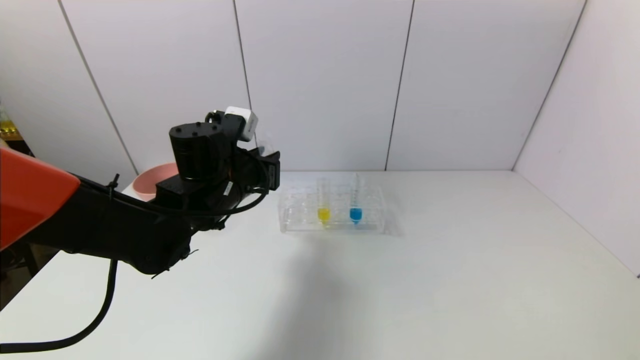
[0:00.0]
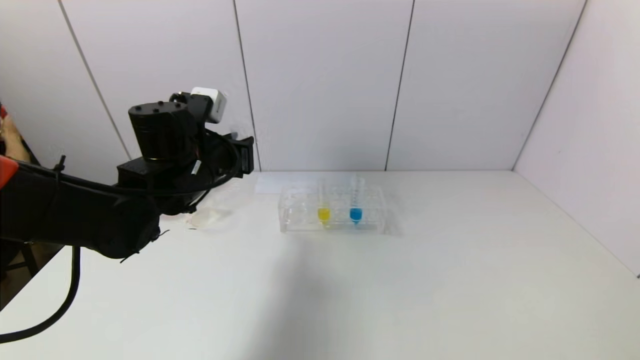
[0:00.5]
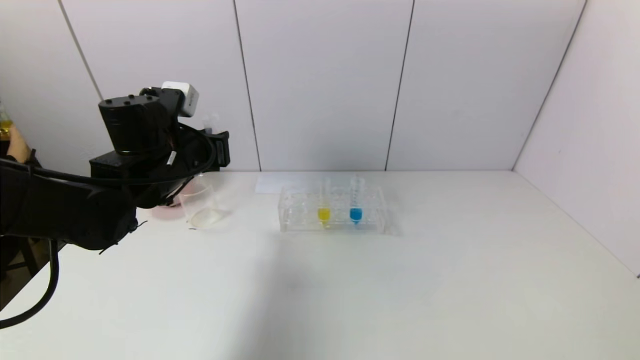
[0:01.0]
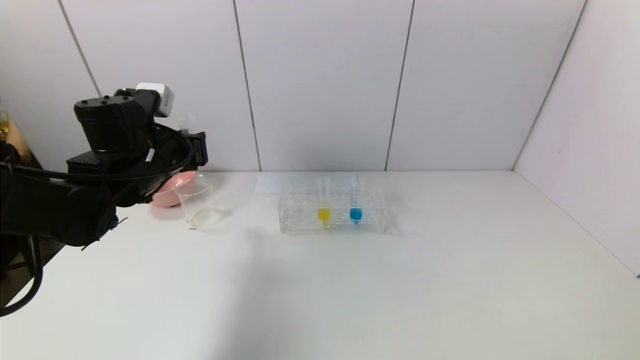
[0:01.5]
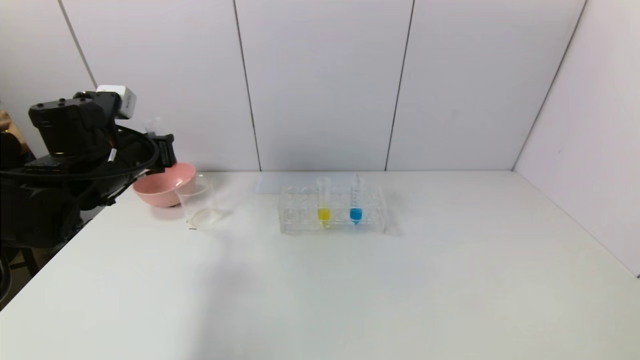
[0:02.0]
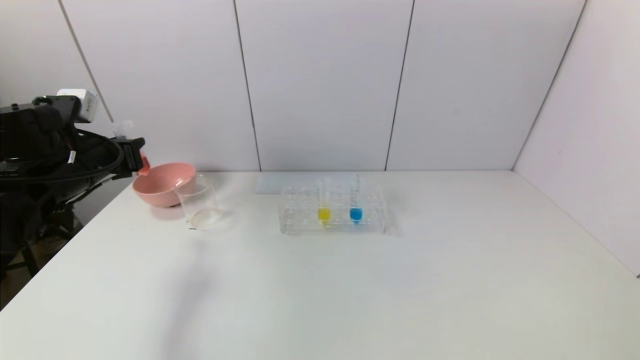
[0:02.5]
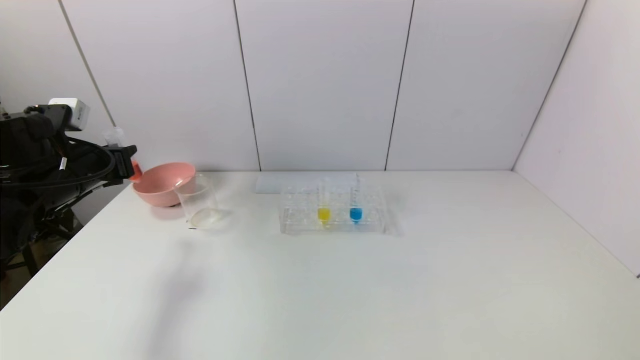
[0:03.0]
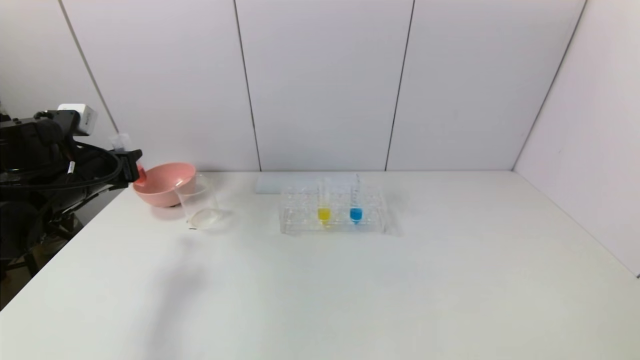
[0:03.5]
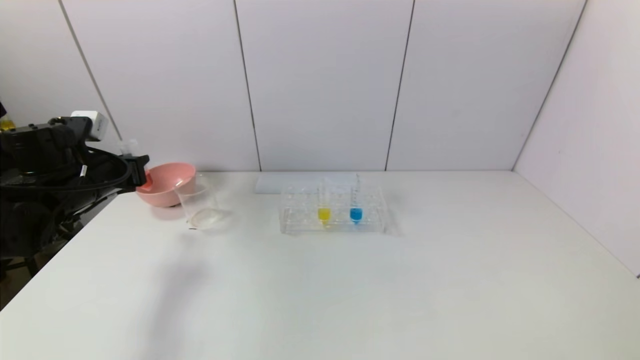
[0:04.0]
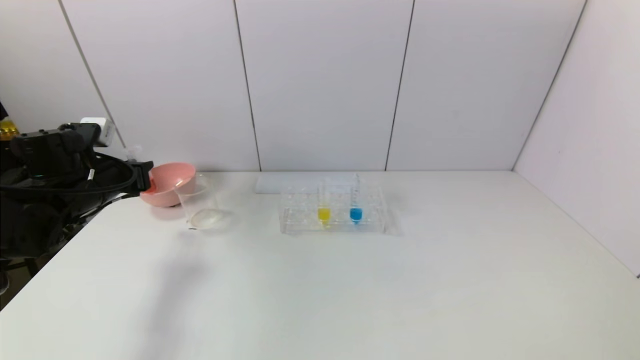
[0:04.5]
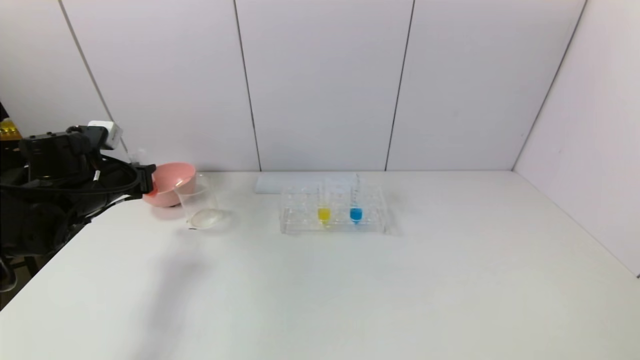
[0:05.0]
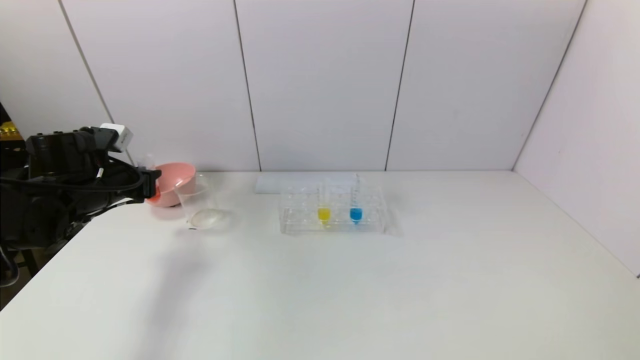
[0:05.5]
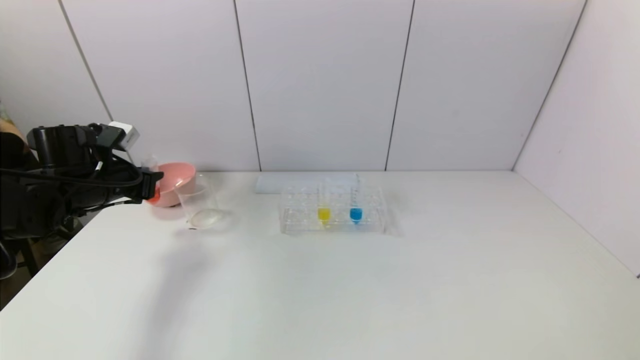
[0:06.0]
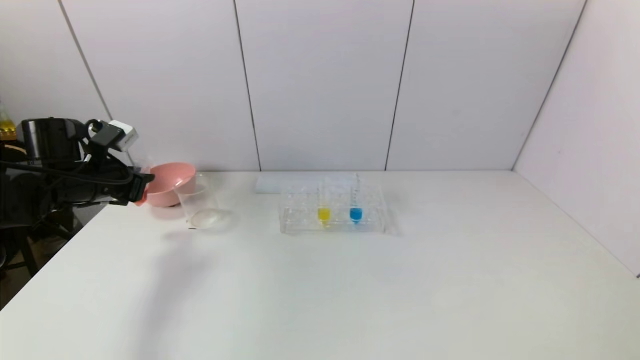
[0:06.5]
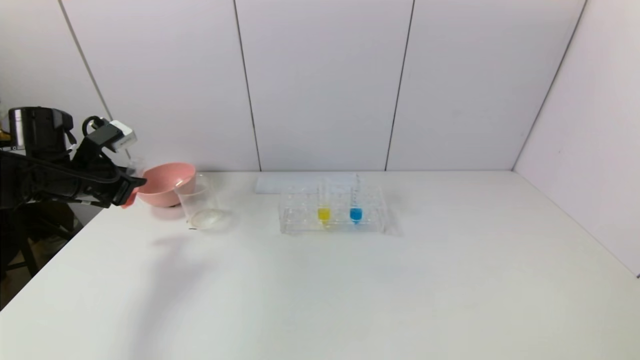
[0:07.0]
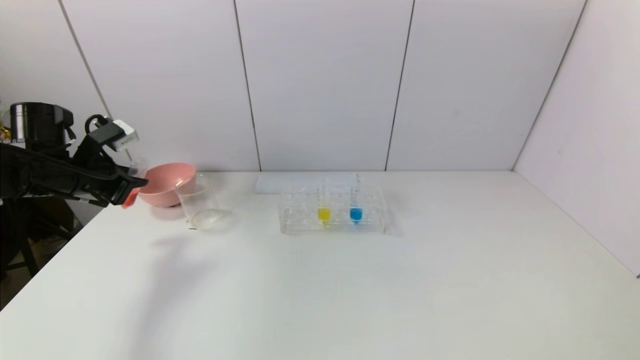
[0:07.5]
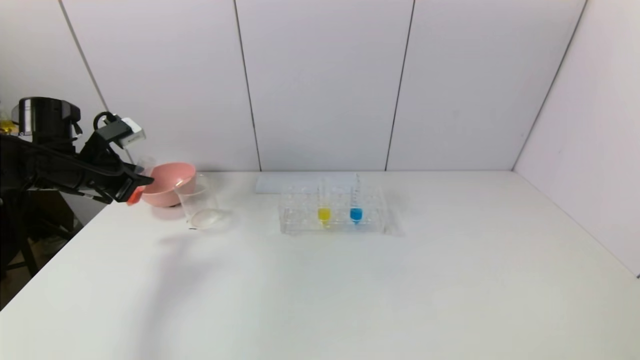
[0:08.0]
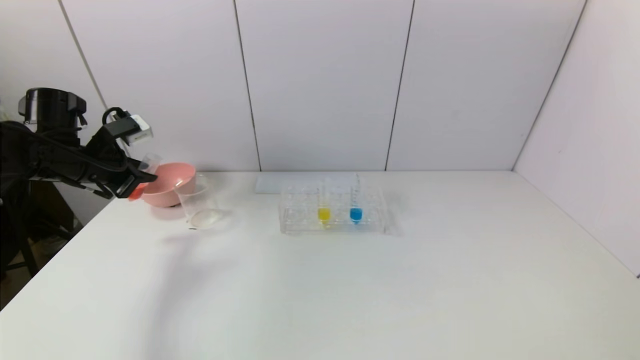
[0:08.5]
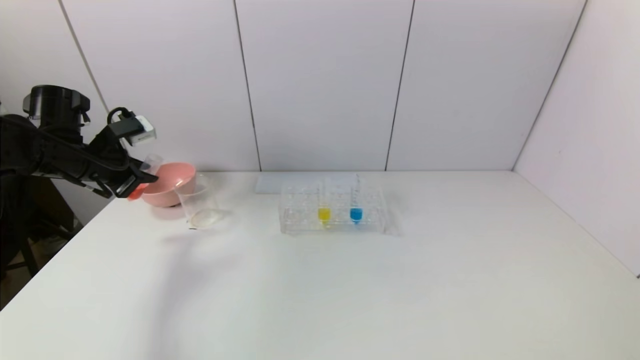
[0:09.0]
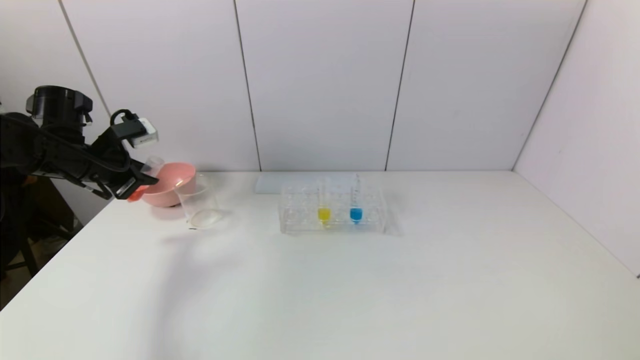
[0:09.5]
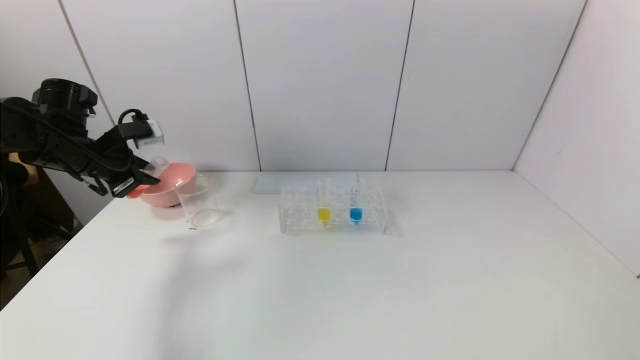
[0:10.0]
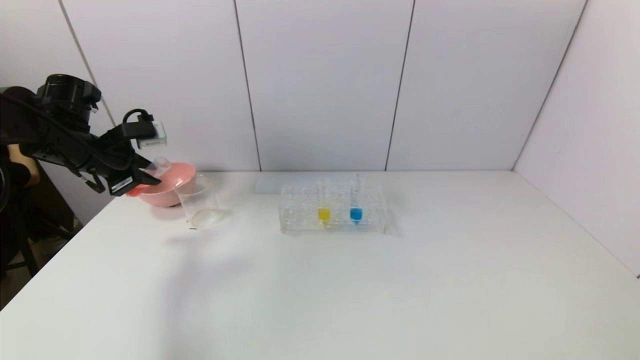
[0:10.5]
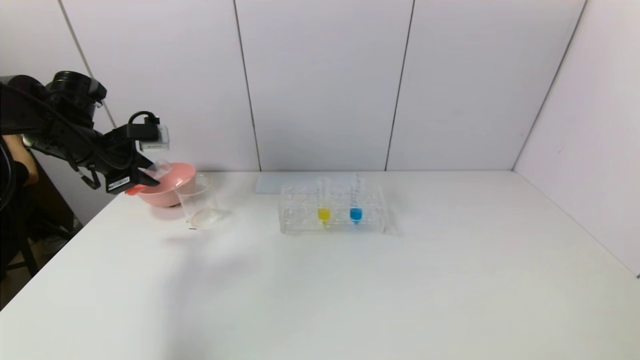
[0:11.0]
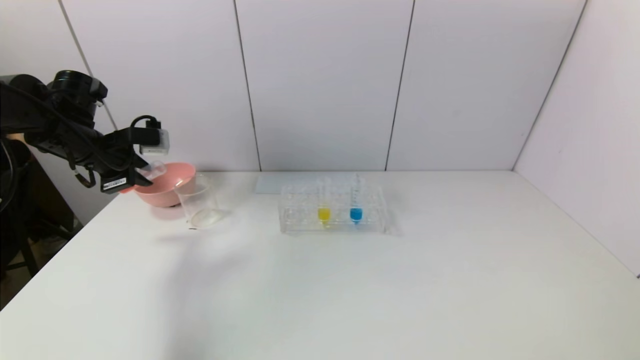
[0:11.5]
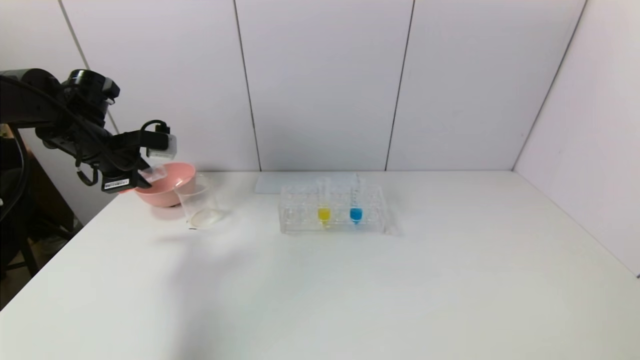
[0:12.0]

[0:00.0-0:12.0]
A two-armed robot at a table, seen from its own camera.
Task of the whole recording: pick up the test tube with yellow pigment and the test tube with red pigment by grippers and pour them into the beaker.
0:00.0 to 0:02.0: The left gripper is displaced to the left by approximately 15 cm.
0:02.0 to 0:04.0: The left gripper heads to the left, covering some 5 cm.
0:04.0 to 0:06.0: There are only small adjustments of the grippers.
0:08.0 to 0:10.0: There are only small adjustments of the grippers.

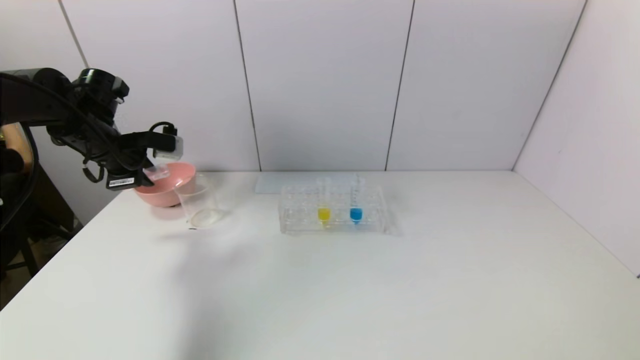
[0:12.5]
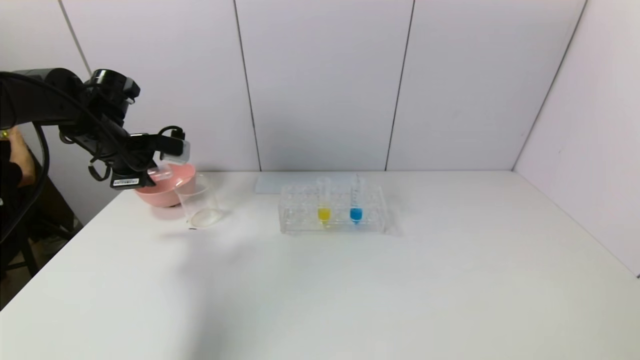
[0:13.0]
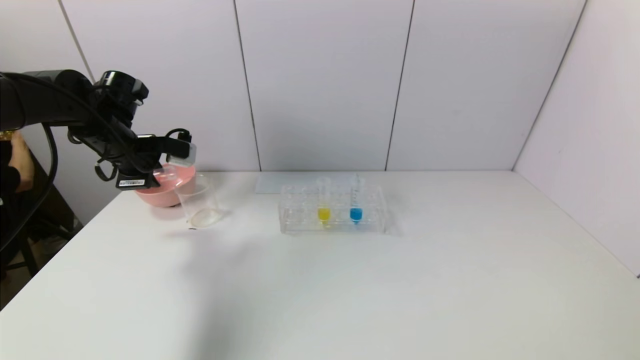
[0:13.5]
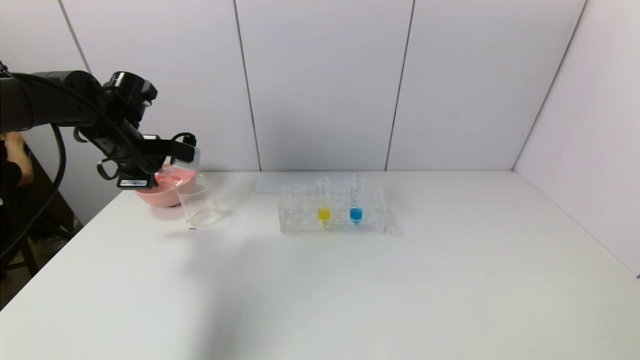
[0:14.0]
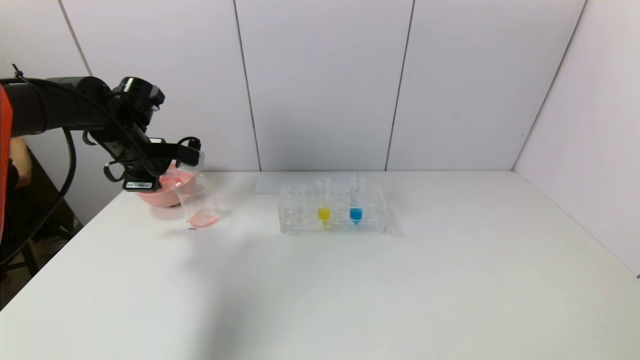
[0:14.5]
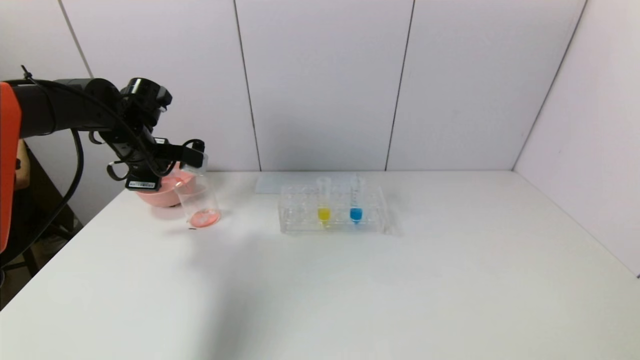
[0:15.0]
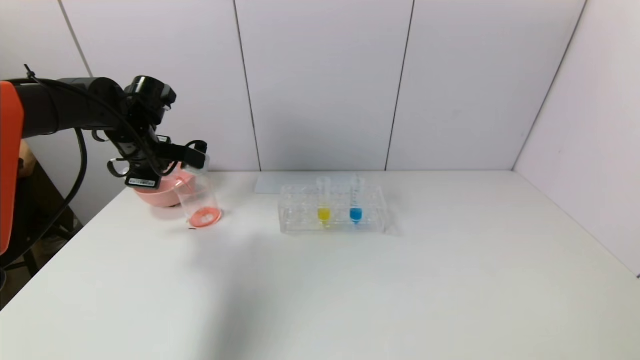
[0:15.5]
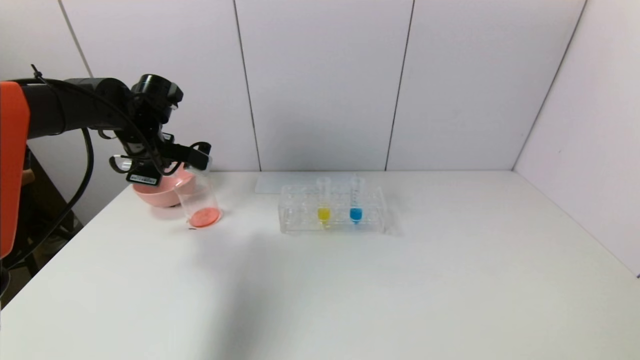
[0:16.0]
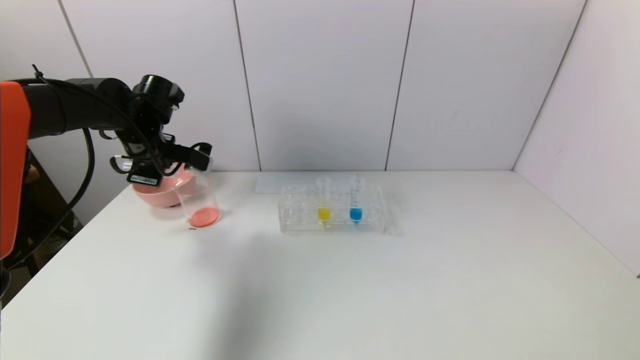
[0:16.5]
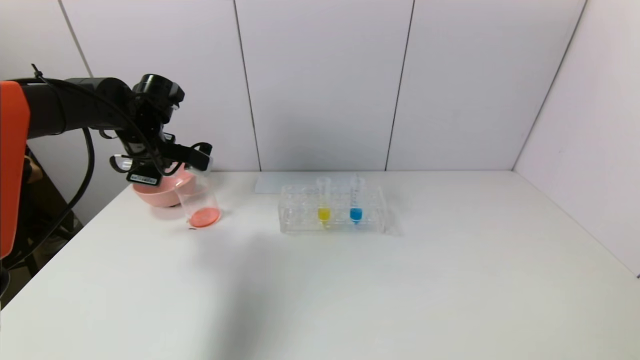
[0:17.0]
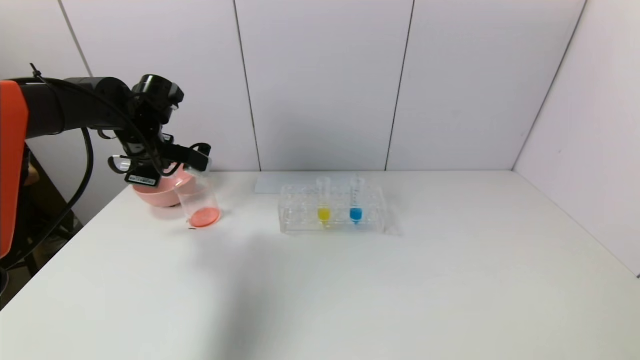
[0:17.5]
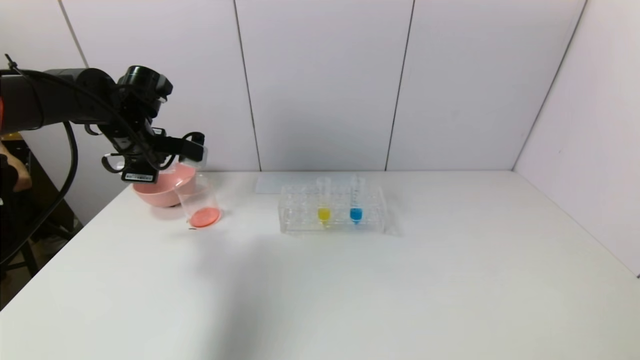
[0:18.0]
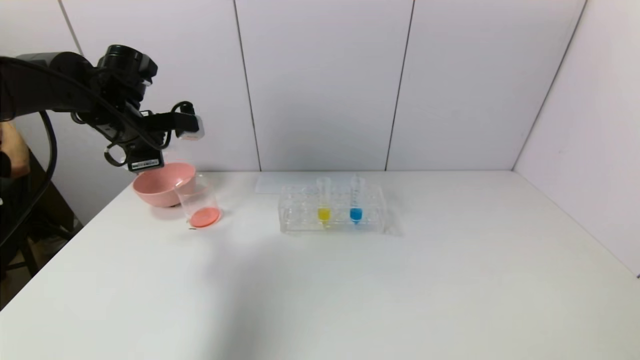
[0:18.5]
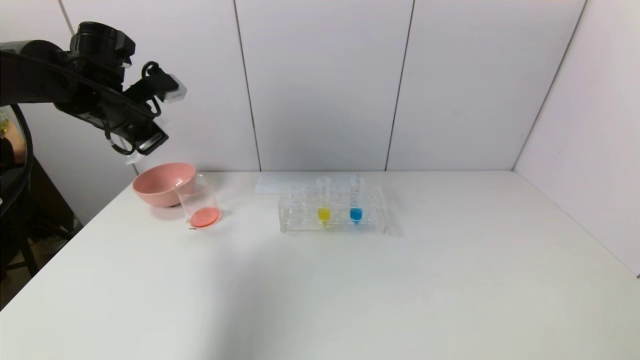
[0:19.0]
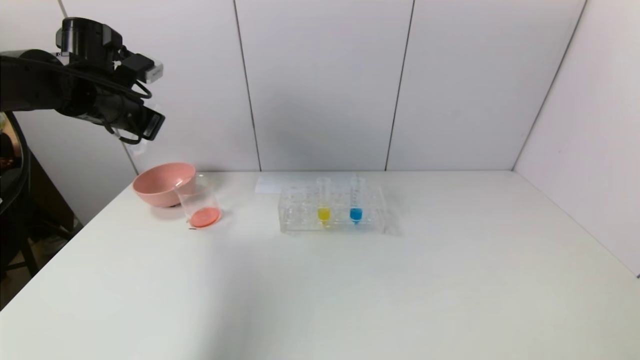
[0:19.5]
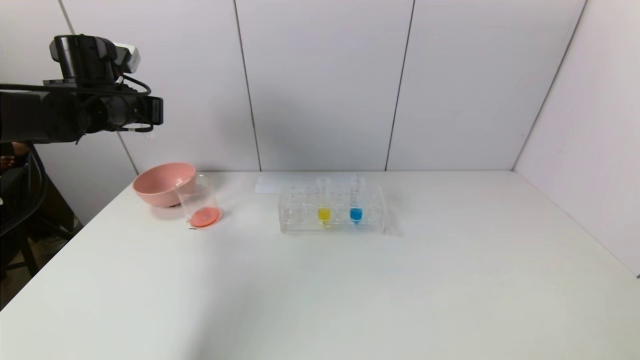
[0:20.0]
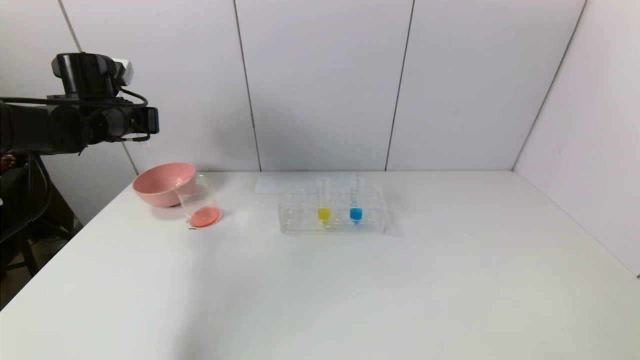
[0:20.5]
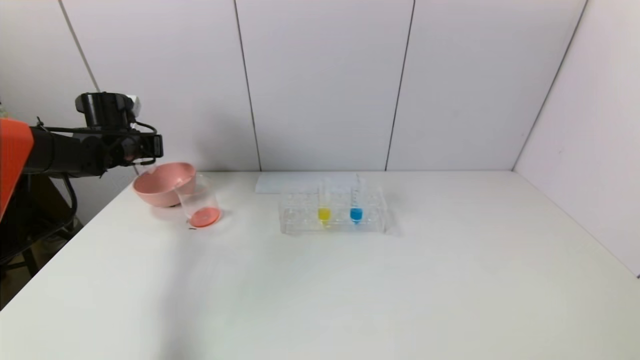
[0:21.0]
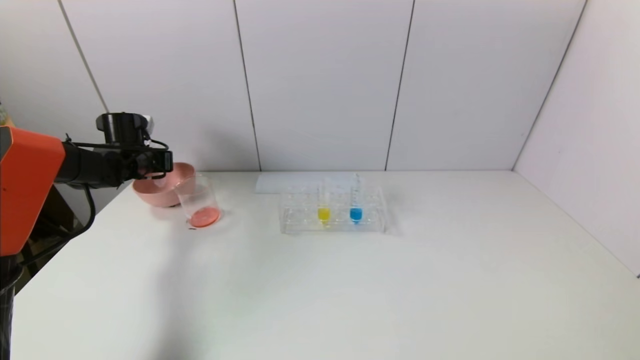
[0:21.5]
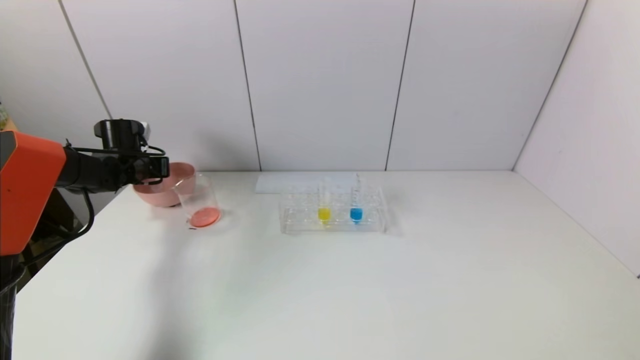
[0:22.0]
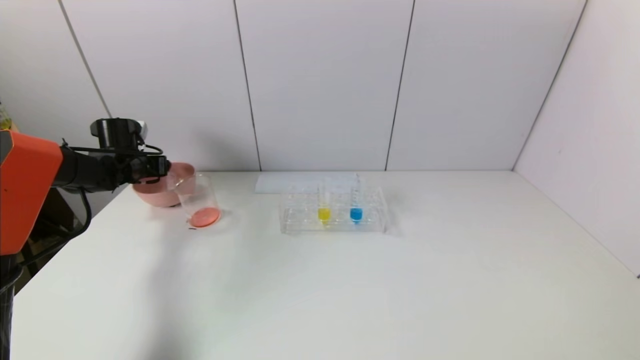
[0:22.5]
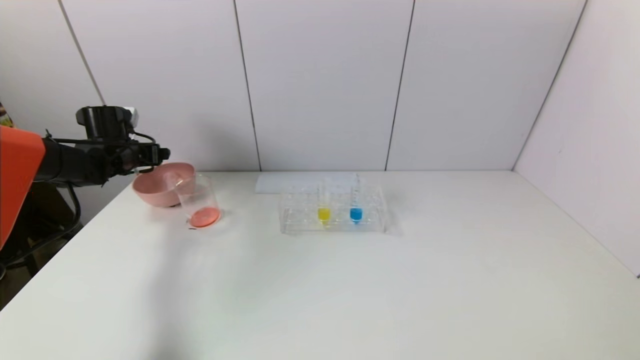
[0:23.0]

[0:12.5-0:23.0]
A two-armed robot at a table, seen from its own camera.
Task of the whole recording: pick up the test tube with yellow pigment and the test tube with red pigment by grippers and pour them into the beaker.
Step, 0:12.5 to 0:16.0: Pour the red reagent into the graduated cylinder with the left gripper.
Step, 0:16.5 to 0:22.0: Place the test tube into the pink bowl with the left gripper.
0:12.5 to 0:14.5: The grippers stay close to where they were, moving slightly.
0:14.5 to 0:16.5: There are only small adjustments of the grippers.
0:16.5 to 0:19.0: The left gripper moves upward, roughly 5 cm.
0:19.0 to 0:21.0: The left gripper is displaced downward, forward and to the left by about 15 cm.
0:21.0 to 0:23.0: The left gripper opens.
